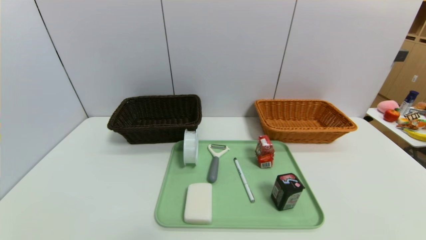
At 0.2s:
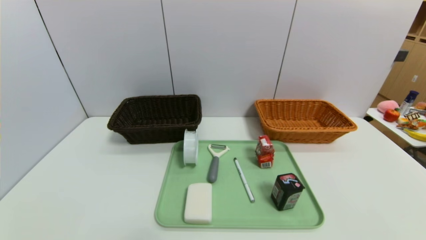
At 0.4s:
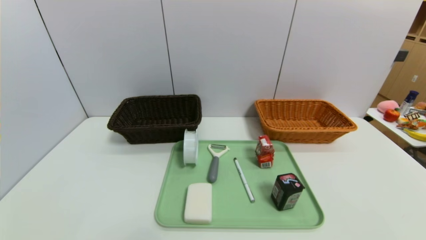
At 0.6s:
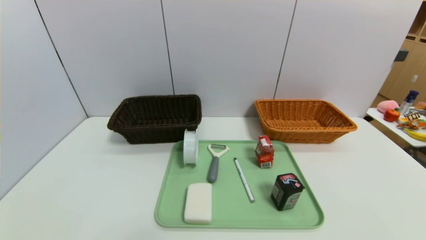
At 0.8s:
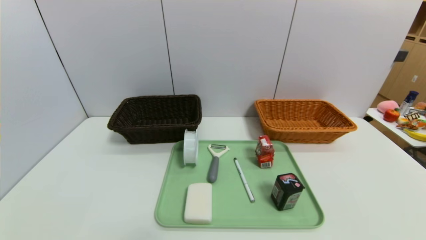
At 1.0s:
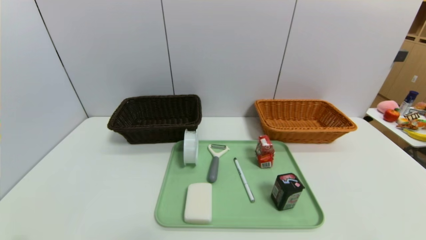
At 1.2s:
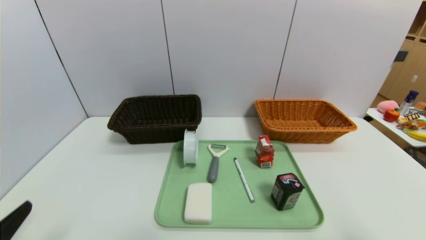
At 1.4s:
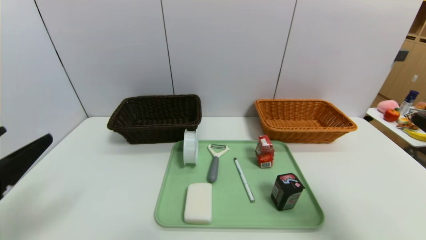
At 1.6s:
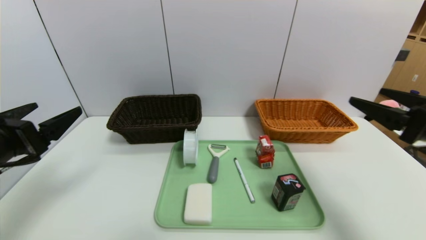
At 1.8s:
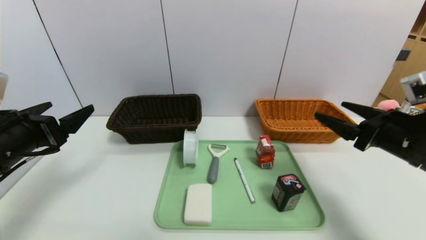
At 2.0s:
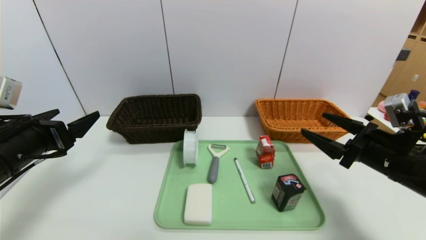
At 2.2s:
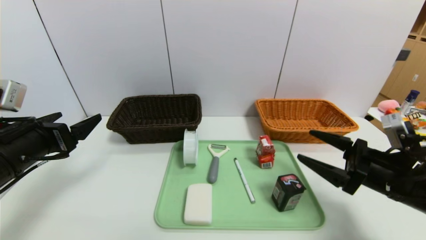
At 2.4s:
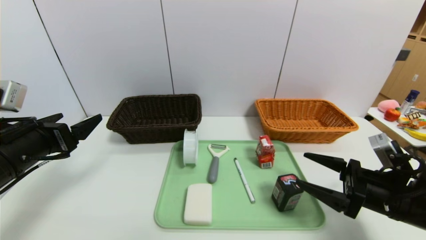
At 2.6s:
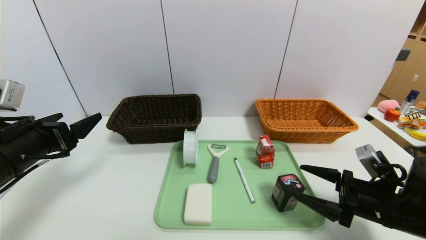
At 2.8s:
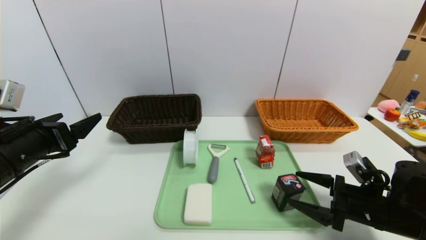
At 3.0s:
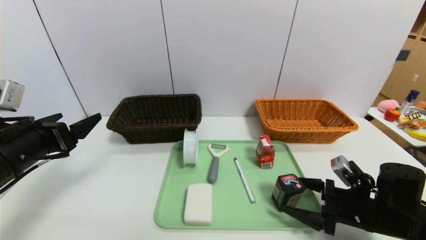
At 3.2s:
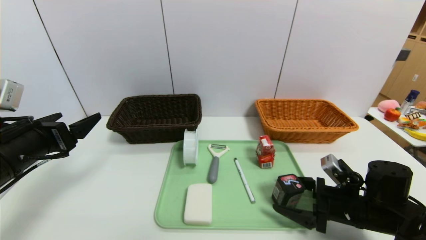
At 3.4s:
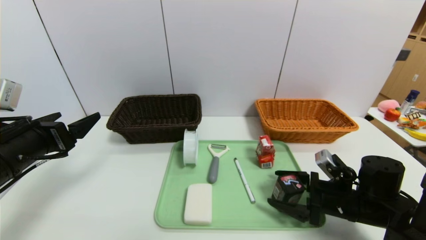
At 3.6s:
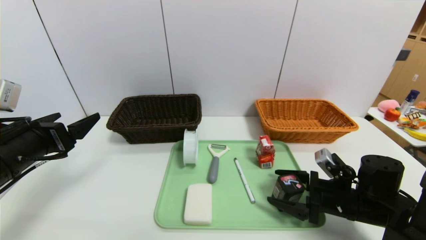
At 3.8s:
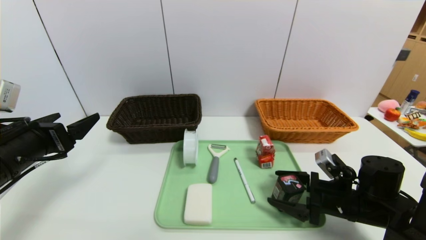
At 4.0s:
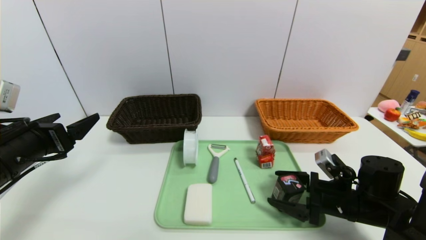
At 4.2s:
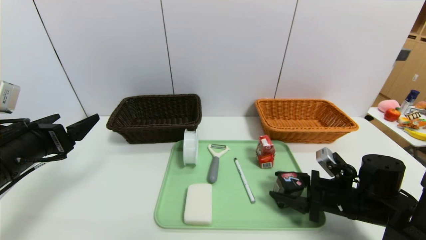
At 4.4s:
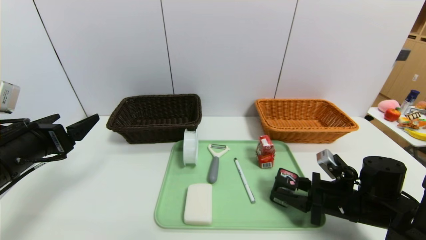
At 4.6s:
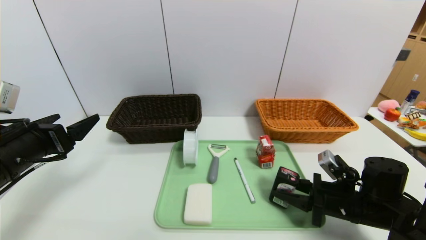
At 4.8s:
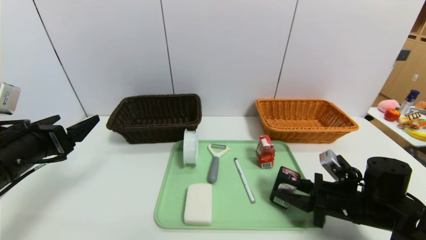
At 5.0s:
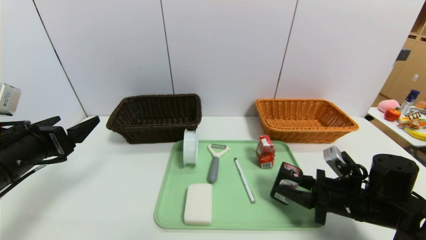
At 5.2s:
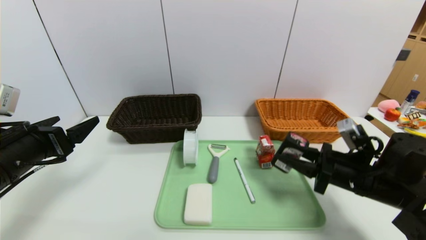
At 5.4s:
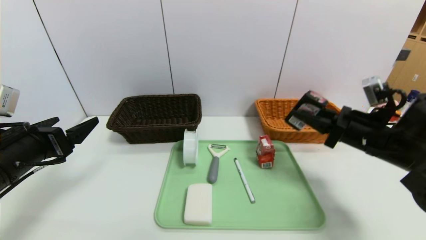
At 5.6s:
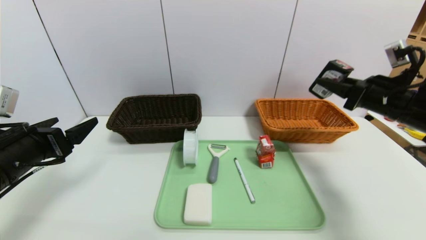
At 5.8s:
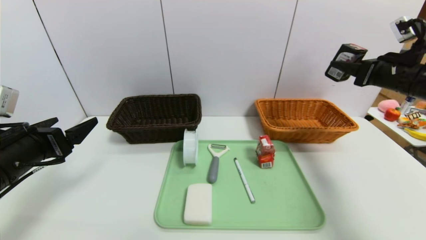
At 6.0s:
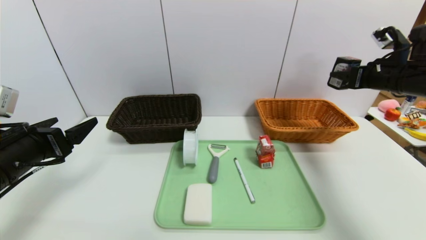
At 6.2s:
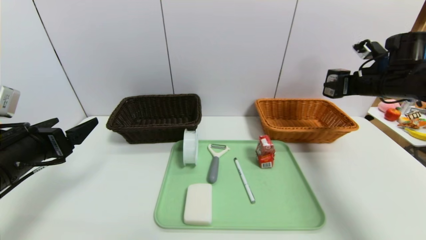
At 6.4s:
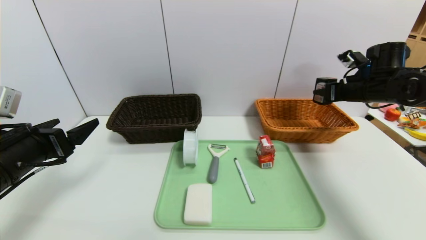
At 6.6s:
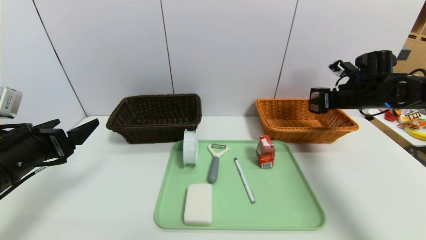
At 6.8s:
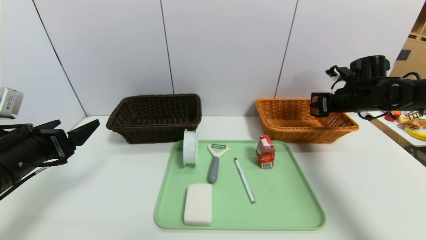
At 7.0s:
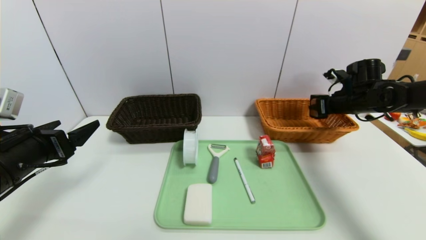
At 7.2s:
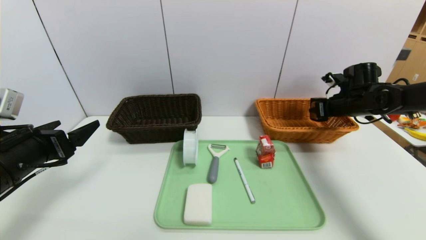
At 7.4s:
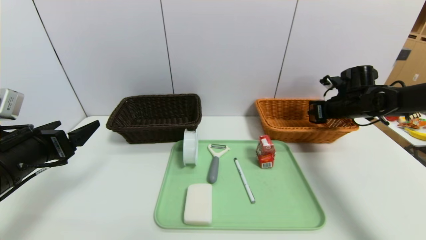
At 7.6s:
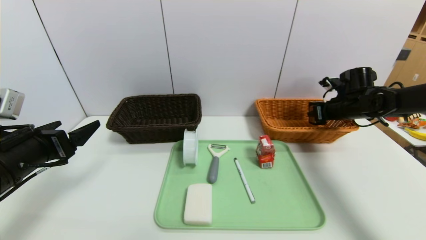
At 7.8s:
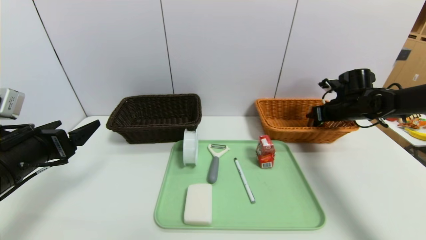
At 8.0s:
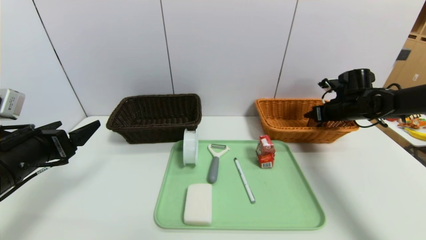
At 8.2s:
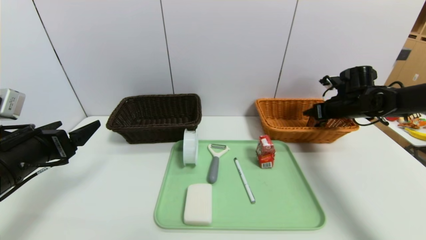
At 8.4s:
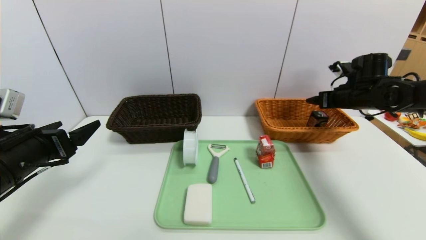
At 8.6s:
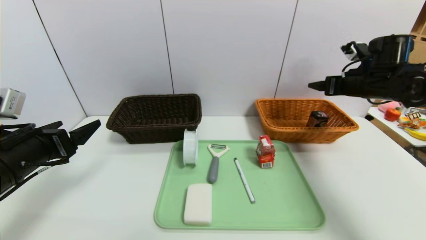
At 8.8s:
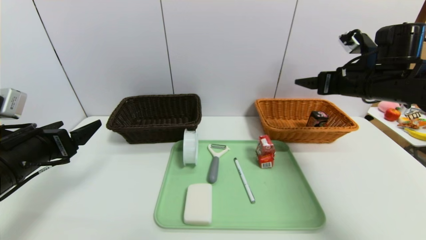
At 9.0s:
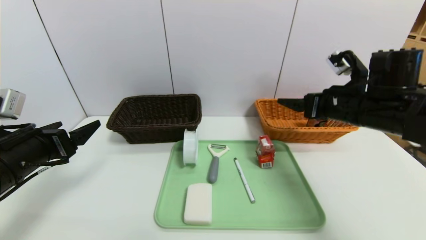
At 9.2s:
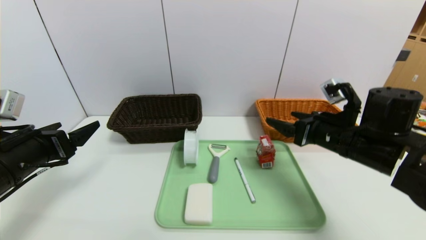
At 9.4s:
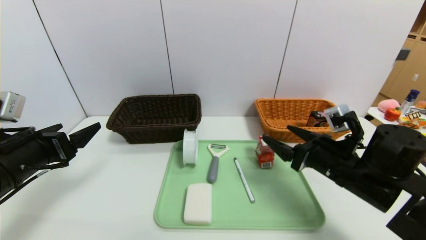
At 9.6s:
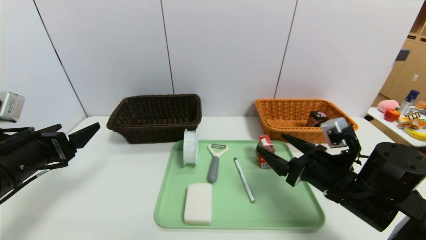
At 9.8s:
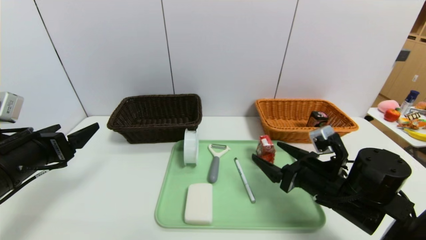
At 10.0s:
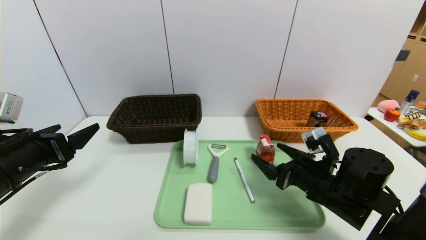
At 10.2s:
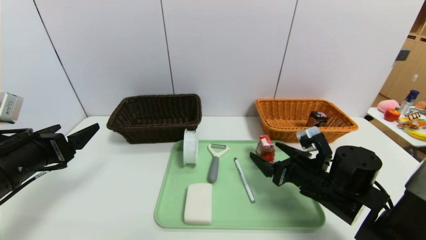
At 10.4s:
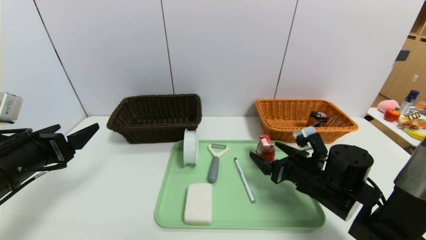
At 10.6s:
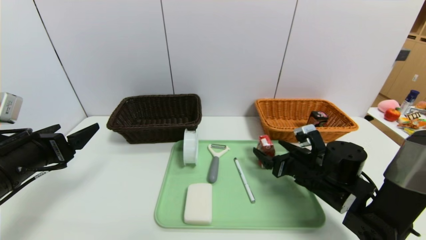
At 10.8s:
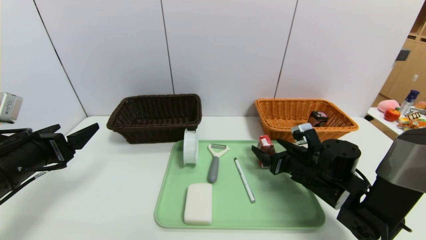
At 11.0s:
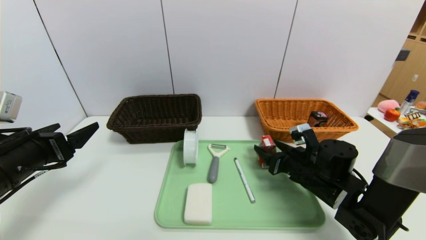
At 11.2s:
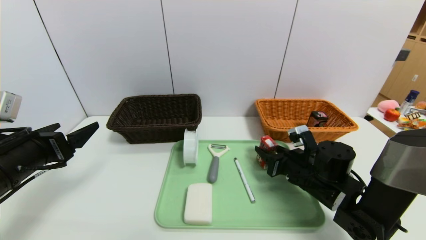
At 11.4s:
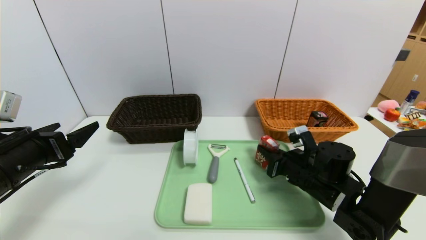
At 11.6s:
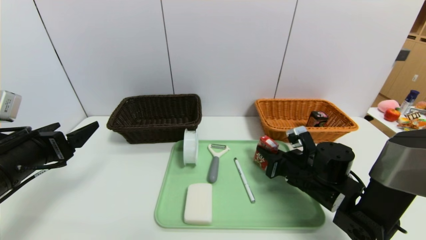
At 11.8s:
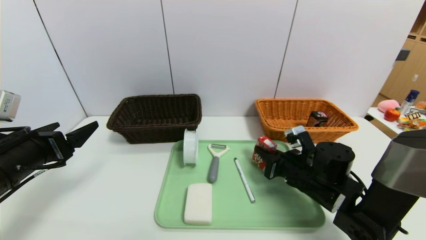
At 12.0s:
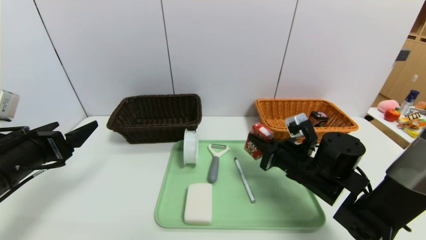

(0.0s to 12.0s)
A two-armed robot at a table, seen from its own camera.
Task of the whole recording: place the food in the right basket with the right gripper, and place the non food items in the left basket with the left gripper.
Step, 0.0s - 8.0s: Grasp the square chewing gum and put it in the right basket.
0.0s - 1.6s: Both grippers move forward and upward, about 25 cm.
1.6s - 3.0s: The right gripper is displaced downward by some 20 cm.
3.0s - 4.4s: The right gripper closes.
4.4s - 6.0s: The right gripper heads upward, forward and to the right, covering approximately 25 cm.
6.0s - 7.6s: The right gripper shifts roughly 15 cm downward and forward.
7.6s - 9.0s: The right gripper shifts some 20 cm backward, to the left and upward, and opens.
9.0s - 10.4s: The right gripper heads downward, covering about 15 cm.
10.4s - 12.0s: The right gripper closes up.

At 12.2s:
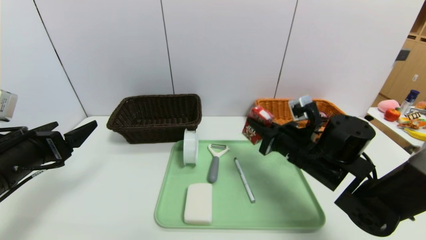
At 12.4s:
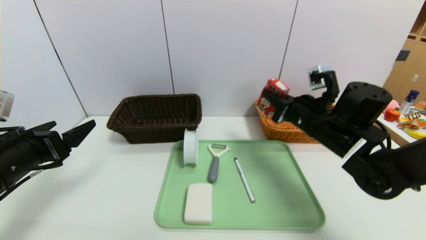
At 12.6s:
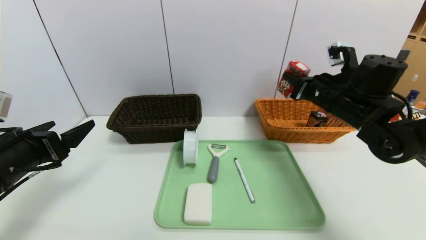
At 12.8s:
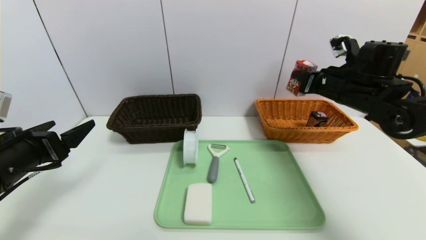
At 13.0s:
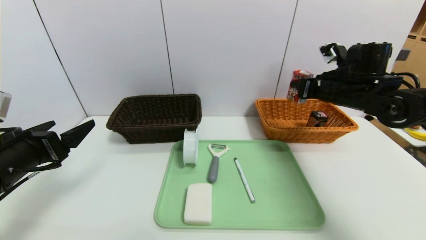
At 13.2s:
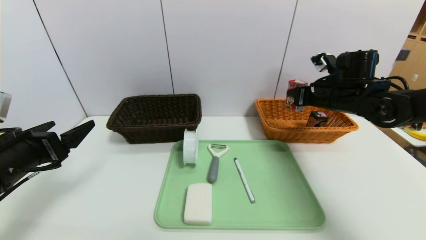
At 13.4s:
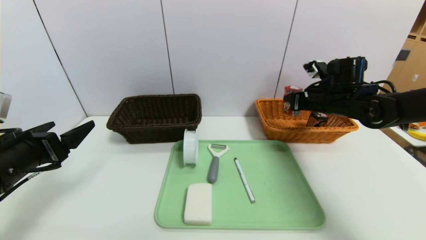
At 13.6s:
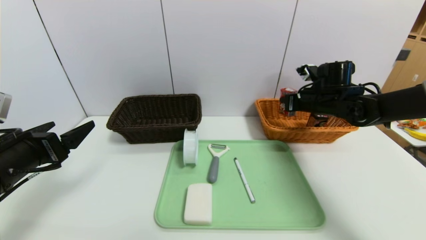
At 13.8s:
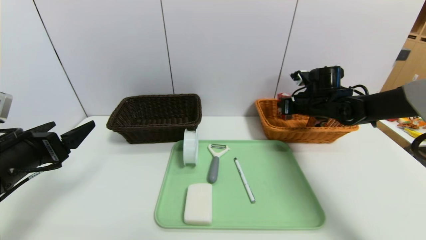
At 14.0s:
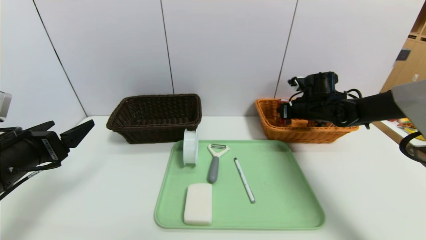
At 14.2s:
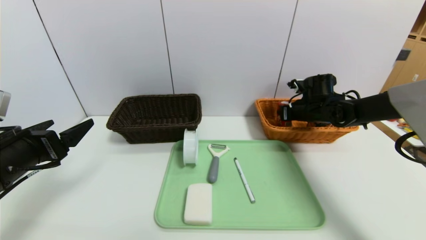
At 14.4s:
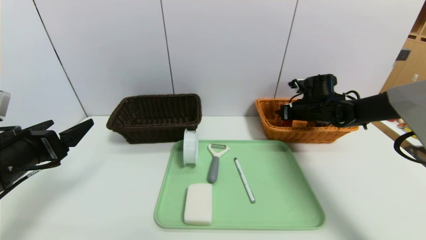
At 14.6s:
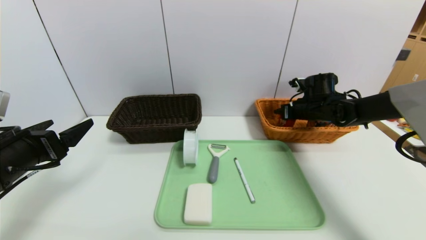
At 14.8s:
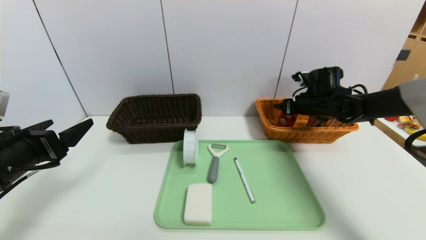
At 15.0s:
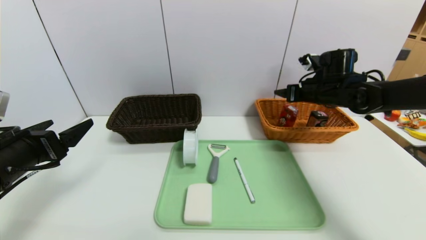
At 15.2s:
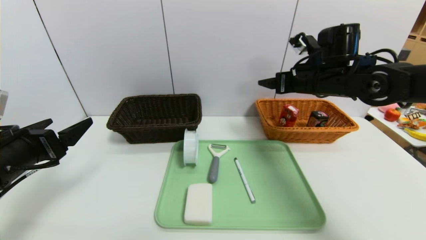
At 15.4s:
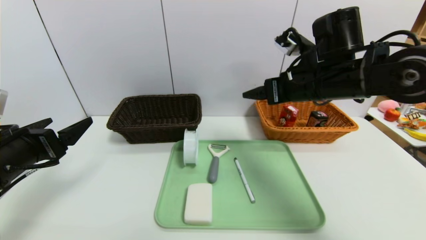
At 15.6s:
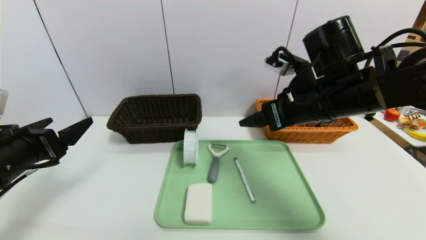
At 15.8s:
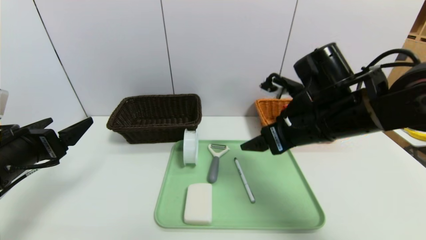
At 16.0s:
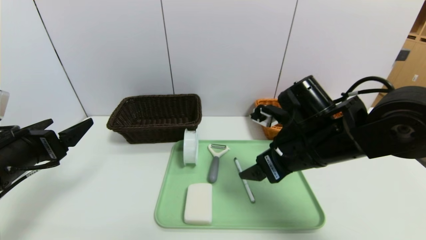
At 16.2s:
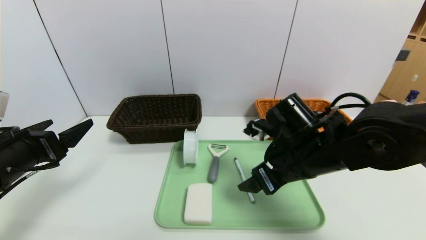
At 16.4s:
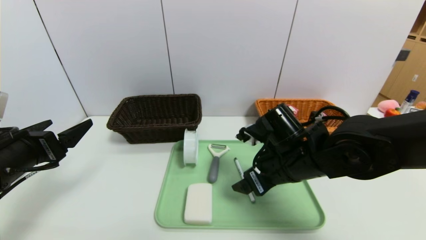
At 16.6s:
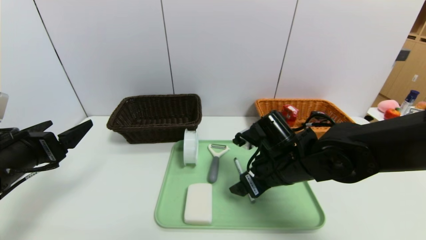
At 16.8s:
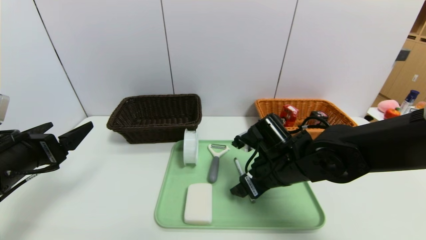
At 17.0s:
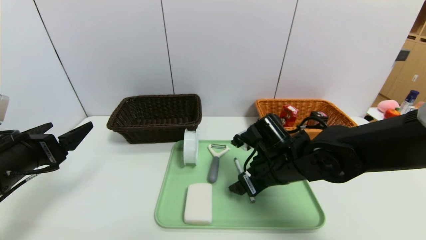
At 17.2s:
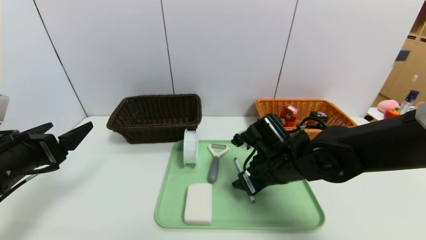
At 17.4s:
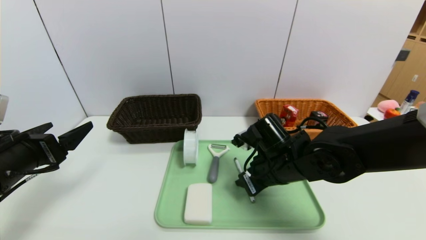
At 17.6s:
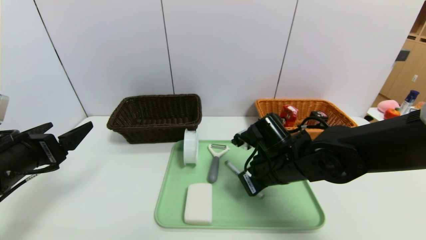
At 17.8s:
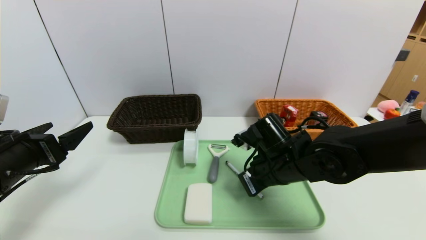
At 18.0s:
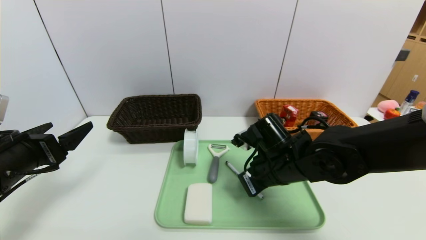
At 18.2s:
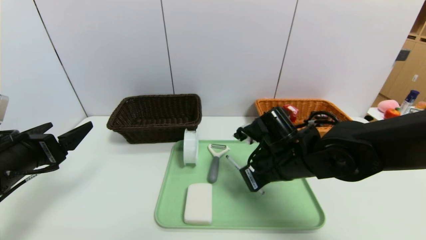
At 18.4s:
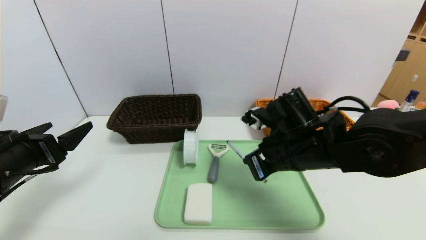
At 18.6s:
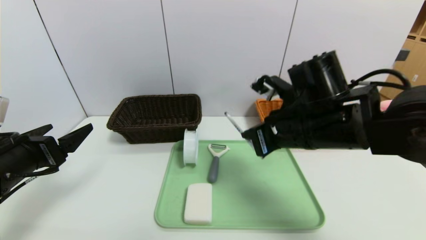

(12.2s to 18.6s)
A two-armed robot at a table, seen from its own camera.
Task of the whole recording: place the food in the right basket with the right gripper, and place the non food items in the left basket with the left gripper.
Step, 12.2s - 14.6s: Grasp the ad milk and put it in the right basket.
12.2s - 13.8s: The right gripper goes roughly 20 cm forward and to the right.
13.8s - 15.4s: The right gripper is displaced backward, upward and to the left by about 20 cm, and opens.
15.4s - 17.0s: The right gripper heads downward, covering approximately 15 cm.
17.0s - 18.6s: The right gripper is displaced upward by approximately 10 cm, and closes.
